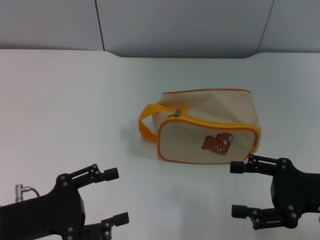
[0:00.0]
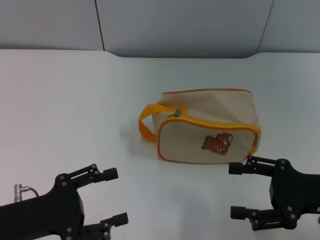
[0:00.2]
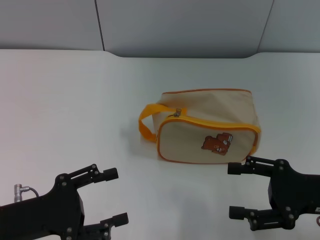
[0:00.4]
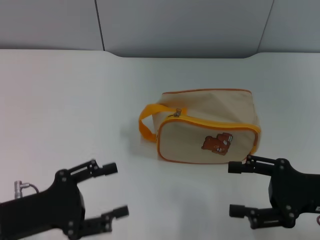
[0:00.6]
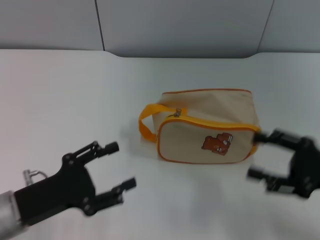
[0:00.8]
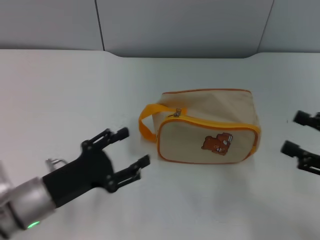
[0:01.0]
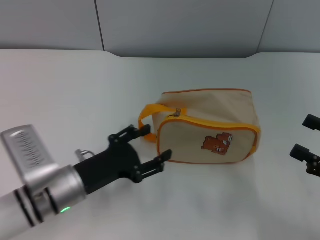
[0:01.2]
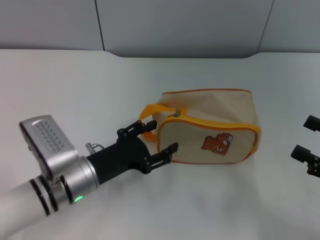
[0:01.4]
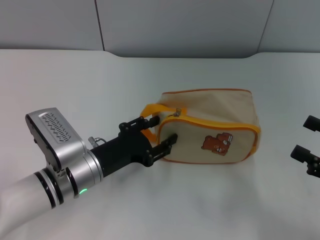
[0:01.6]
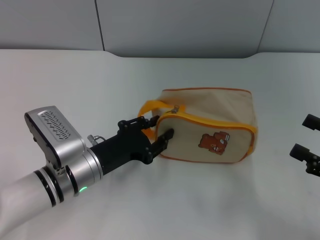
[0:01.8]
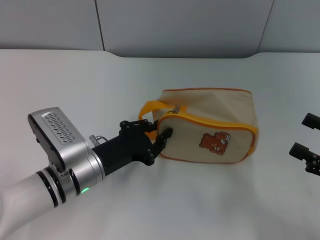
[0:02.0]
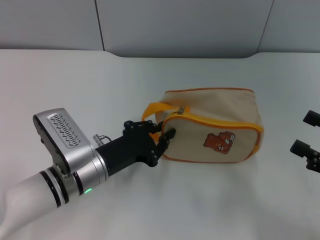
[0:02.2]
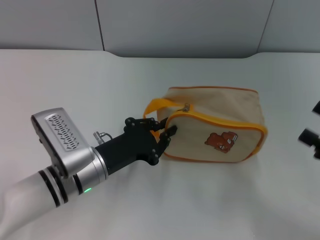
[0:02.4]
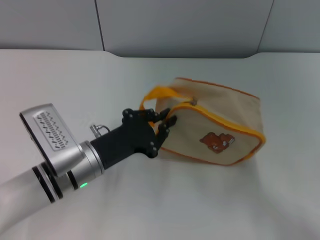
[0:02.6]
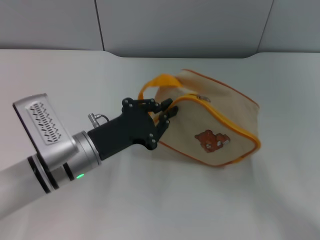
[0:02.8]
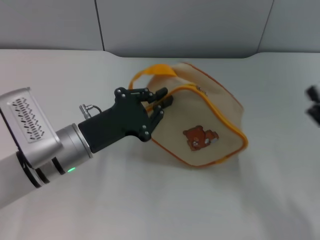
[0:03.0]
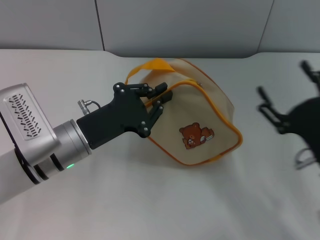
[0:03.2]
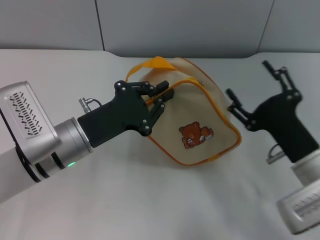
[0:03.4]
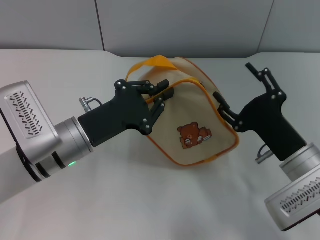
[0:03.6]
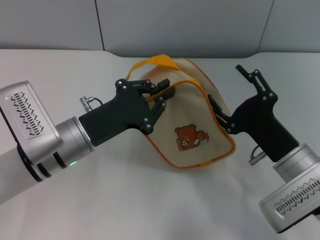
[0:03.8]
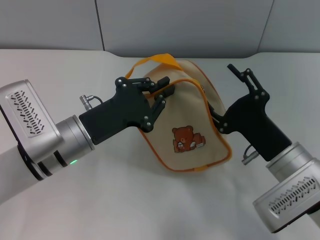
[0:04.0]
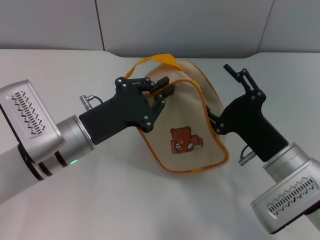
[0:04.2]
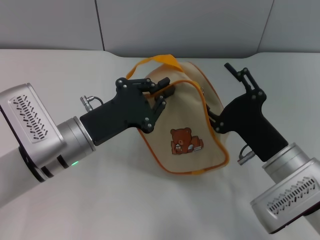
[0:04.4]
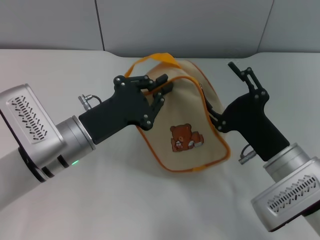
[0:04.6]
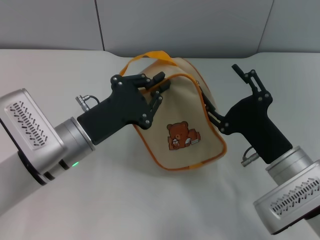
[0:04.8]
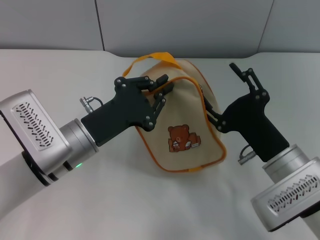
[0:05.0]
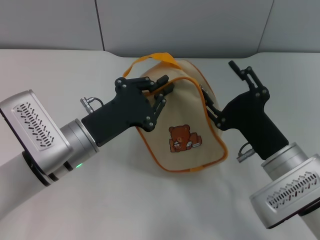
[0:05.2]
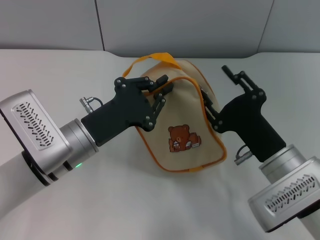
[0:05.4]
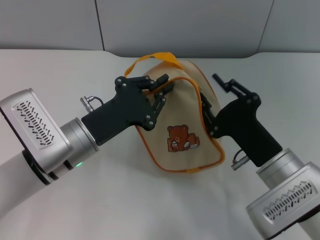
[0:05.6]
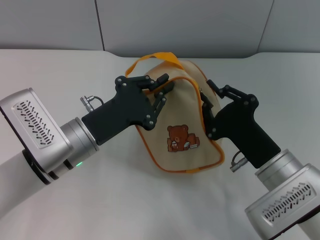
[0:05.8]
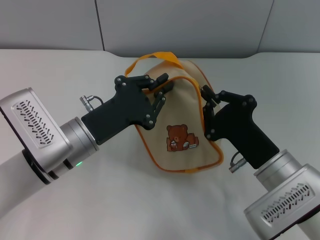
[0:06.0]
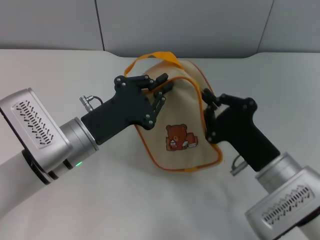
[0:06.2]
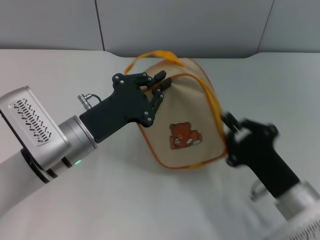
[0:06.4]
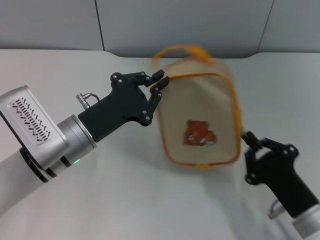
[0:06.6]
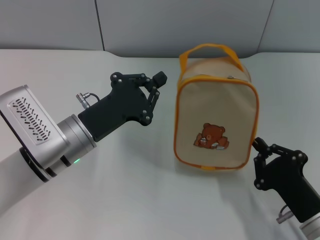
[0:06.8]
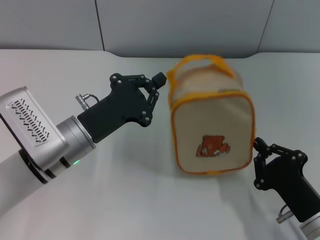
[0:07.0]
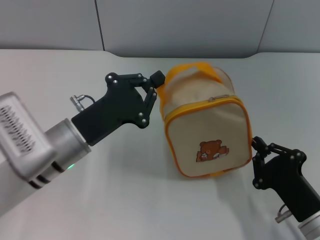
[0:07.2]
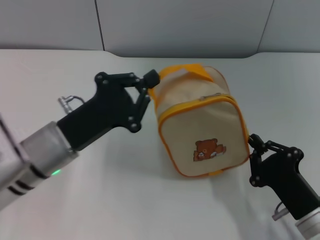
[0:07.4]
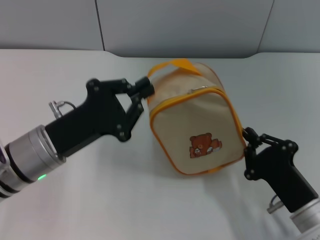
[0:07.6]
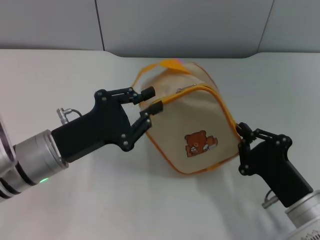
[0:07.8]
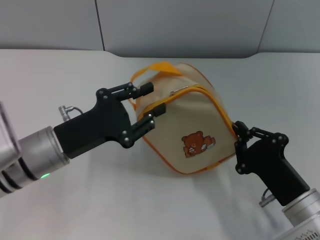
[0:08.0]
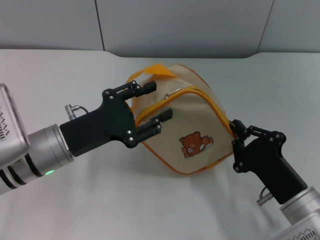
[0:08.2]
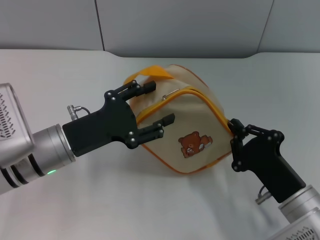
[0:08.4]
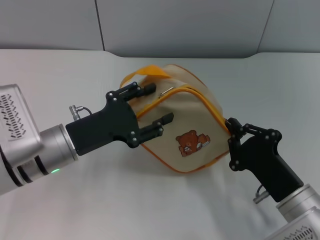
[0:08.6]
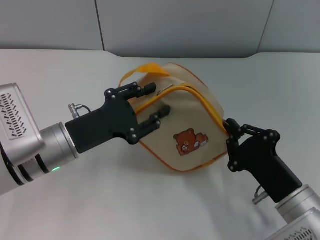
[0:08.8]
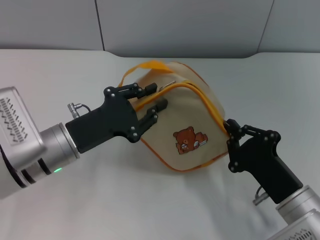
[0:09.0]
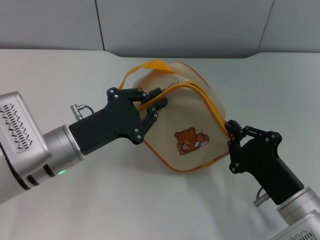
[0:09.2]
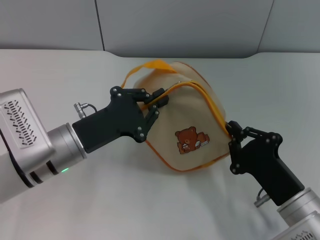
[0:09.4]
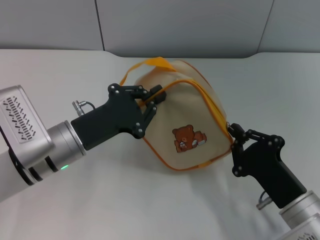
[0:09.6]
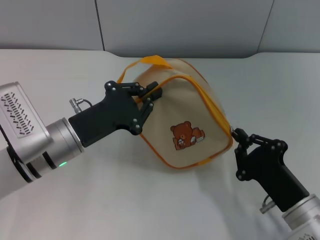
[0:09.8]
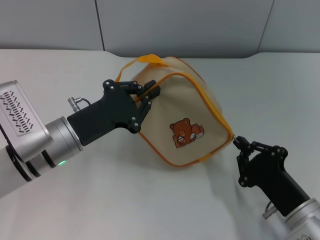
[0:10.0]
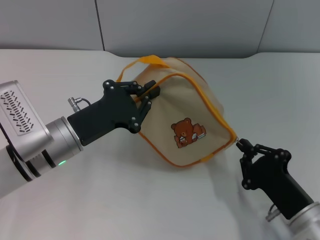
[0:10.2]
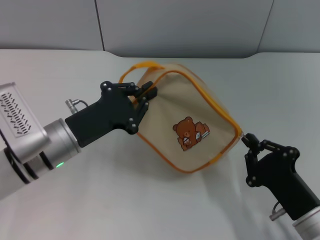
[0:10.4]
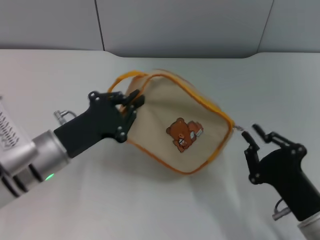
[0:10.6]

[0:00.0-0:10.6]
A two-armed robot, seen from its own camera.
Step, 0.0 to 3.0 s: Pick up the bag with left gripper.
Step, 3.4 to 10.6 s: Unzip the zipper of bag with right gripper.
0.0 to 1.6 s: The left gripper is displaced to the right and forward by about 15 cm. Meanwhile the right gripper is displaced to the right by some 5 cm.
1.6 to 3.0 s: The left gripper closes up. Meanwhile the right gripper moves to the left, about 5 cm.
3.0 to 4.6 s: The right gripper goes about 10 cm to the left.
4.6 to 6.0 s: The right gripper closes up.
6.0 to 7.6 s: The right gripper moves backward, approximately 5 cm.
7.6 to 9.0 s: The left gripper opens up.
9.0 to 10.6 s: The left gripper closes its fingers.

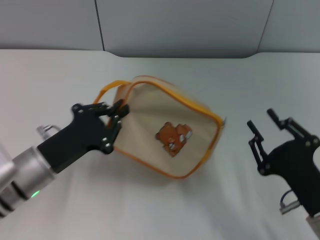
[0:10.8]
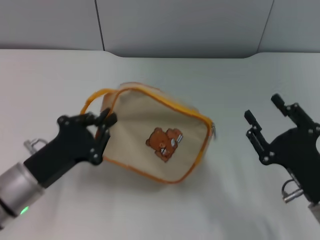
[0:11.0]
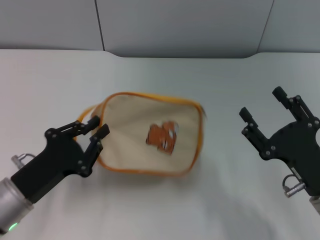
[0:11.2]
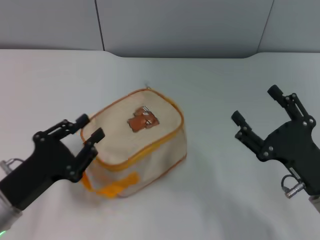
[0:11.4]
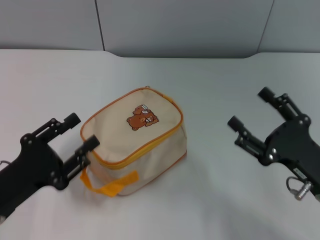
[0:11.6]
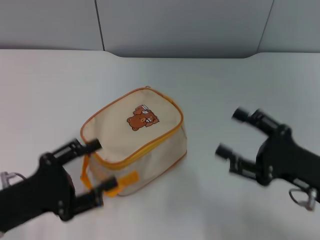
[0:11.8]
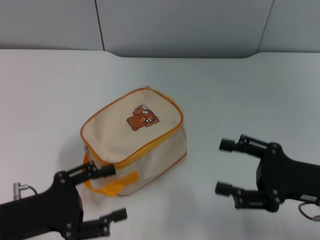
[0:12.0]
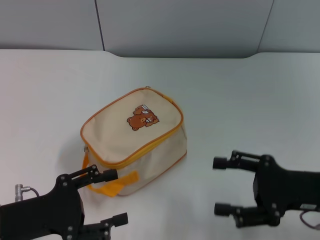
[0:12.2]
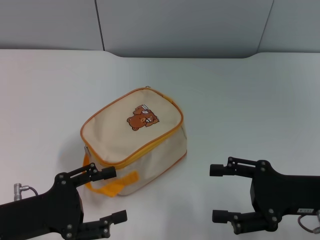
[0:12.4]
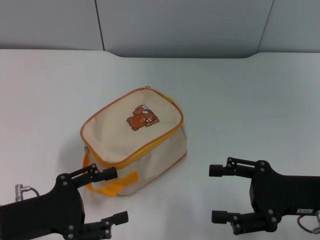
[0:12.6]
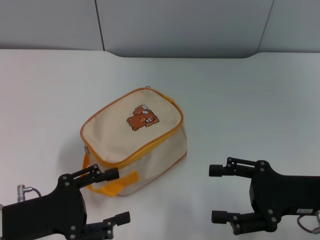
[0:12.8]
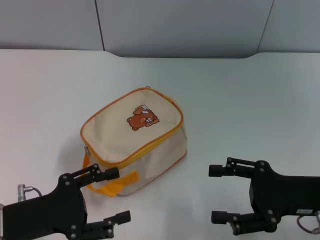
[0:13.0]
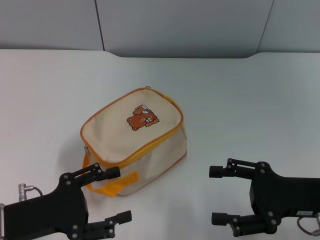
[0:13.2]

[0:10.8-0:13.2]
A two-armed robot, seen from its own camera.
Step, 10.8 to 11.8 s: Place the bag on the table with left gripper.
10.8 to 12.0 s: The right gripper is displaced forward by about 5 cm, and opens up. Meanwhile the left gripper shifts approximately 10 cm backward and to the left, and opens.
12.0 to 13.2 s: The grippers make only small movements.

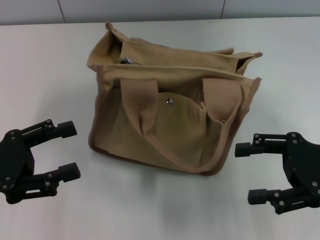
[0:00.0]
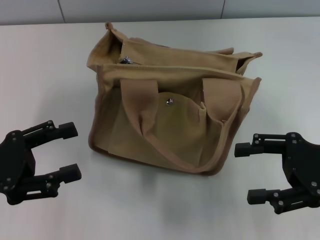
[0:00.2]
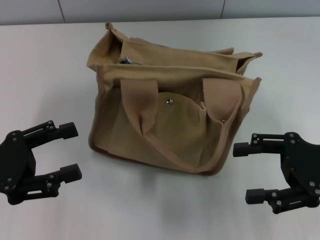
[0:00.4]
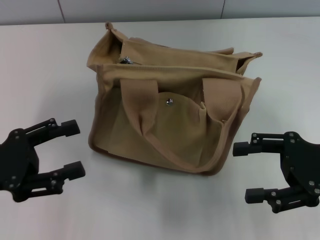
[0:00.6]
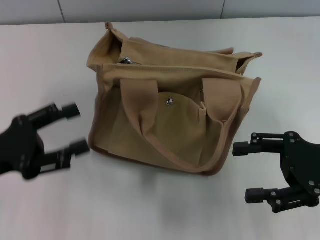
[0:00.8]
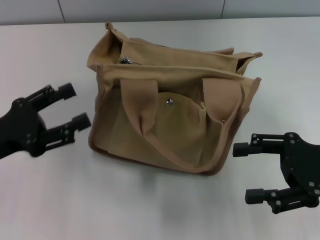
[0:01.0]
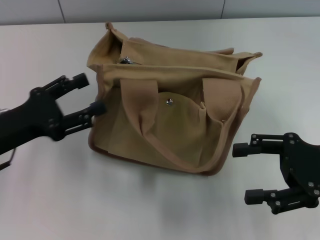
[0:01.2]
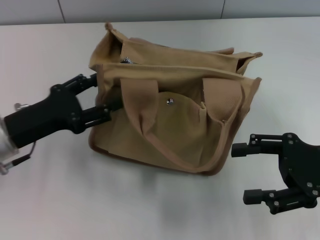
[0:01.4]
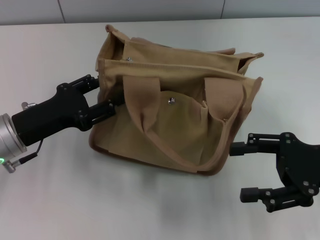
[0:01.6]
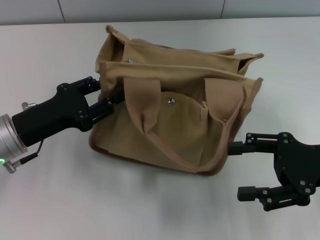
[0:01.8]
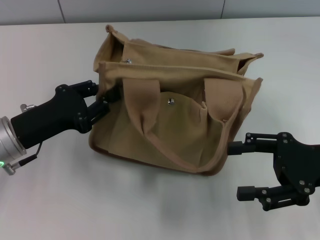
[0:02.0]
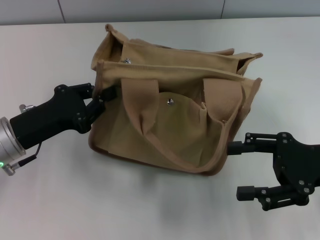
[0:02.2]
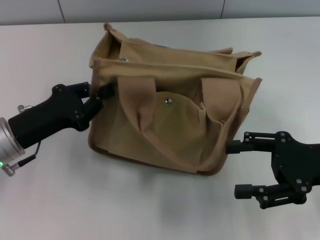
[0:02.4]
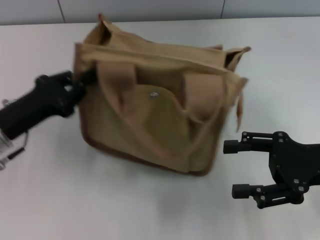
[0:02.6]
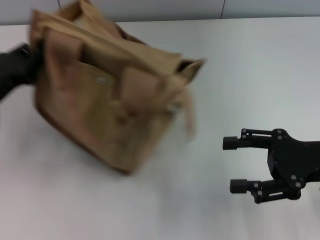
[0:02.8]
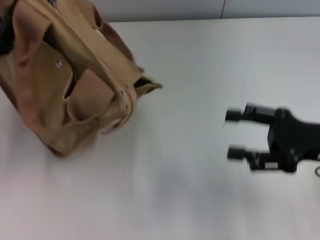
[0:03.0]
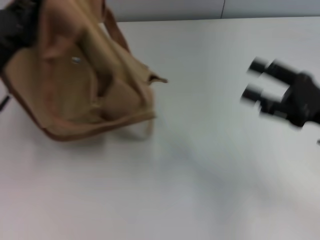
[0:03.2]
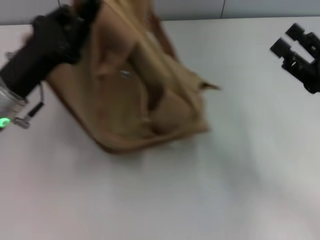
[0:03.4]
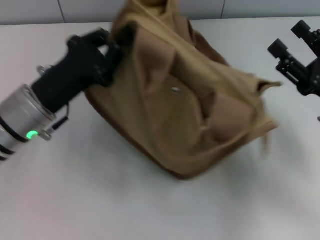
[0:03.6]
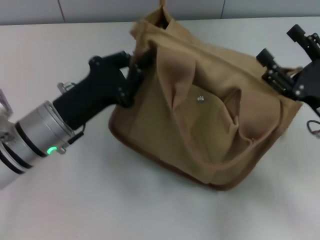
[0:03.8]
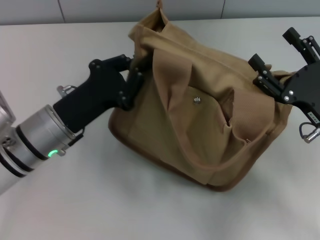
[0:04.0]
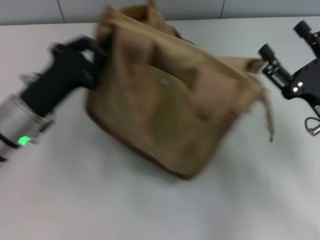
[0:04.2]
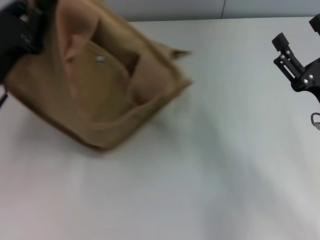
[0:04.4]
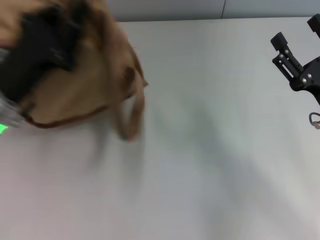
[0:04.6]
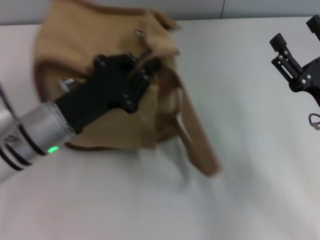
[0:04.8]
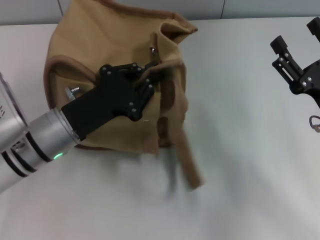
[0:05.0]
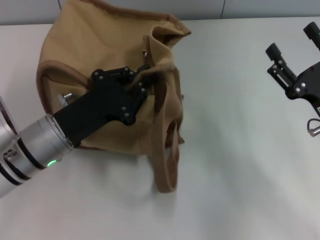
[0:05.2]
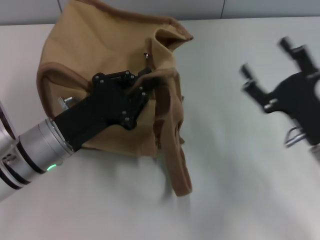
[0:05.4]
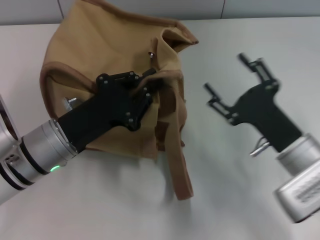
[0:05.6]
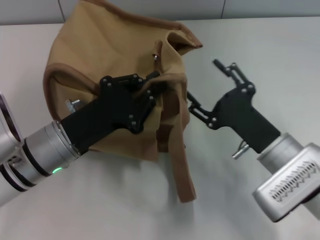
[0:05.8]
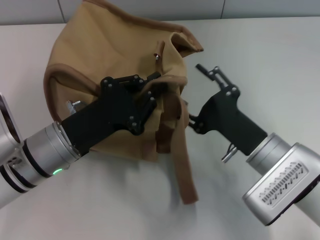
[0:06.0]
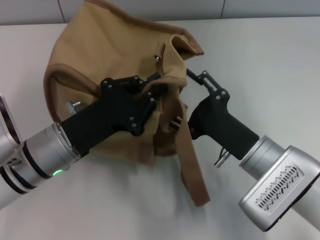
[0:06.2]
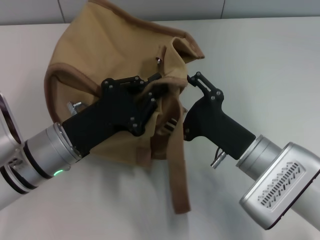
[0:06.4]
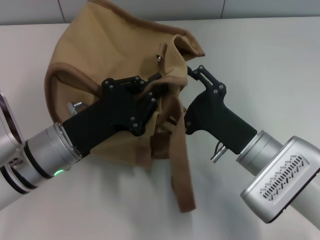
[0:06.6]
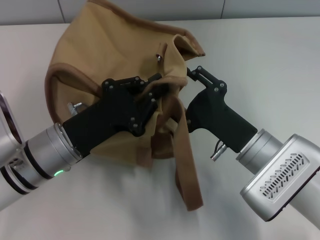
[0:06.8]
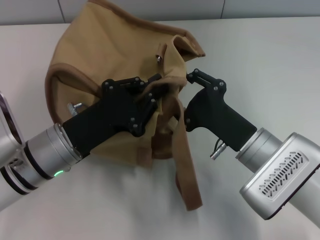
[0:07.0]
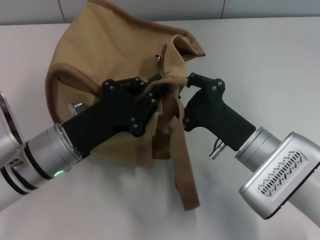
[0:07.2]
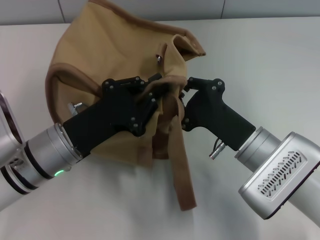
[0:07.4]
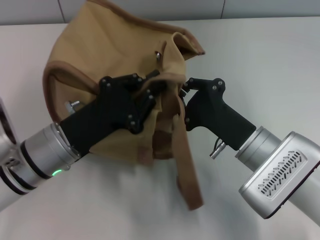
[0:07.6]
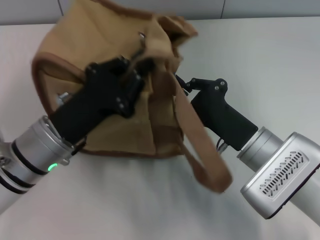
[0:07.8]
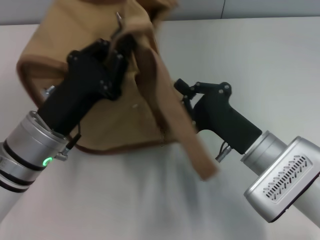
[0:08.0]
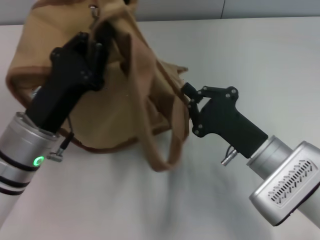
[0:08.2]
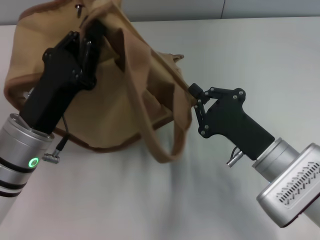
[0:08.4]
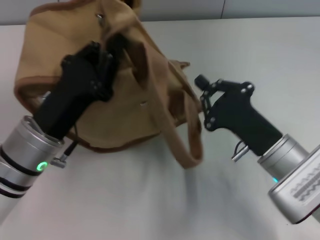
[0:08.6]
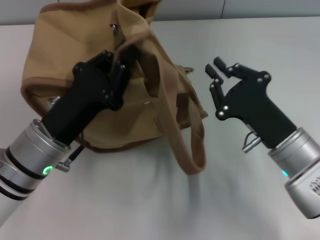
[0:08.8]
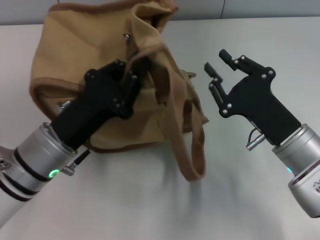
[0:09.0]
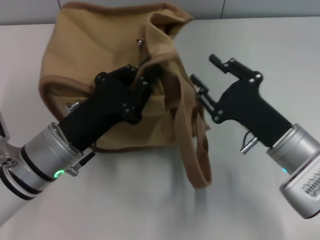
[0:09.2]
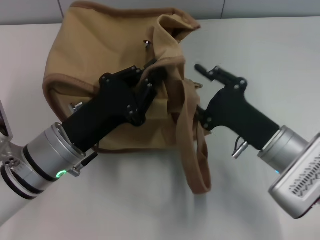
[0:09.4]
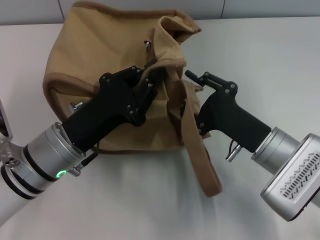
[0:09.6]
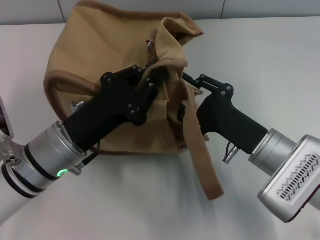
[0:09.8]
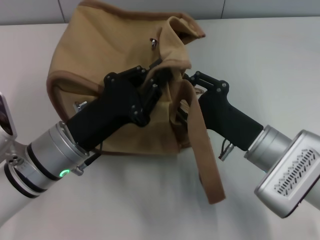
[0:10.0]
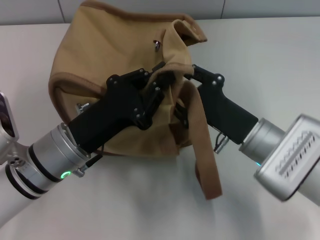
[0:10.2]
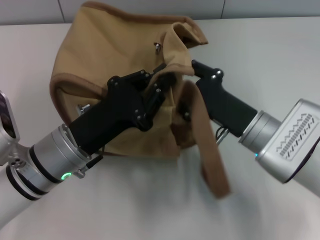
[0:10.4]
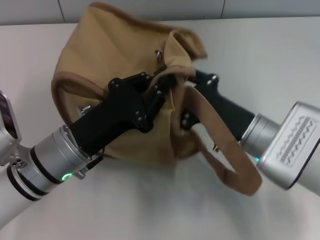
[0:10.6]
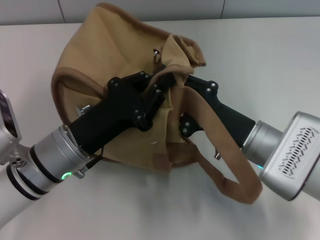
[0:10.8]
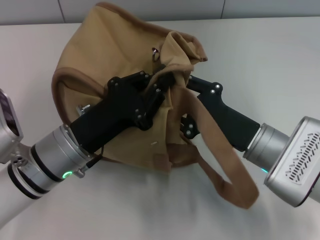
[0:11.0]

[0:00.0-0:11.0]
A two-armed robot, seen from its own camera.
0.0 to 1.6 s: The left gripper travels forward and to the right by some 10 cm.
1.6 to 3.2 s: The left gripper changes place by roughly 5 cm, and closes.
3.2 to 4.8 s: The left gripper swings left and right, about 10 cm each way, with 2 reversals.
4.8 to 6.2 s: The right gripper shifts roughly 10 cm to the left.
6.2 to 7.8 s: The right gripper closes.
7.8 to 9.4 s: The right gripper opens its fingers.
